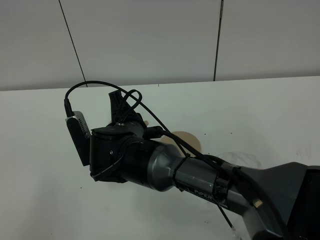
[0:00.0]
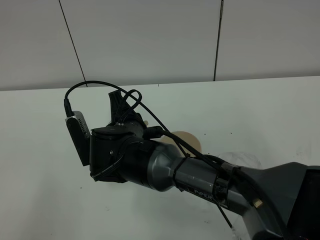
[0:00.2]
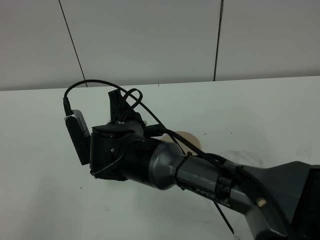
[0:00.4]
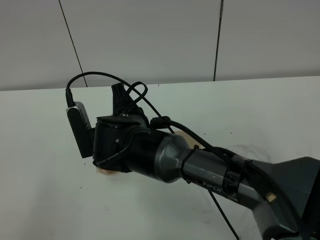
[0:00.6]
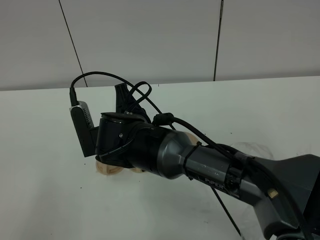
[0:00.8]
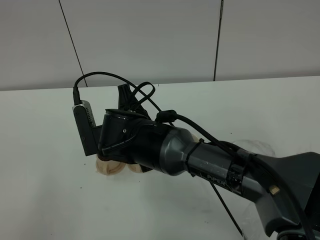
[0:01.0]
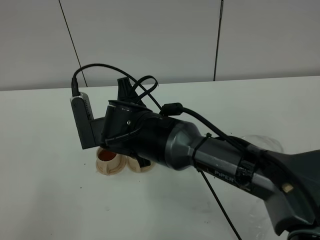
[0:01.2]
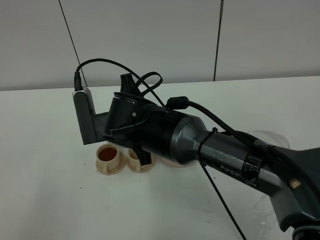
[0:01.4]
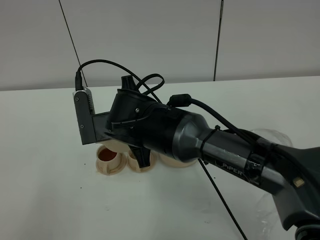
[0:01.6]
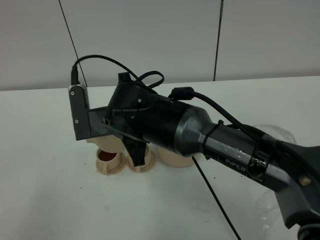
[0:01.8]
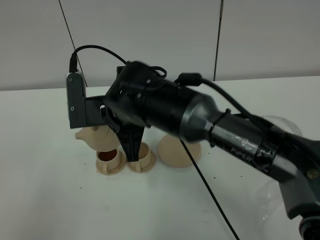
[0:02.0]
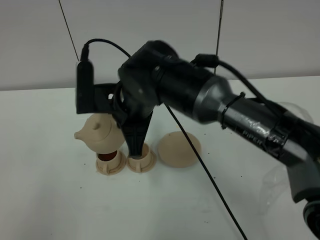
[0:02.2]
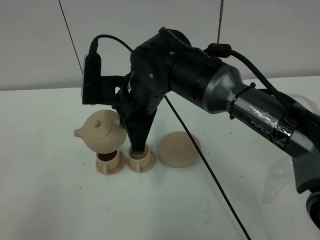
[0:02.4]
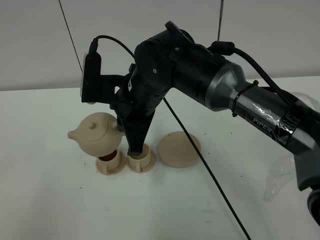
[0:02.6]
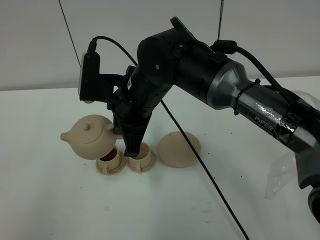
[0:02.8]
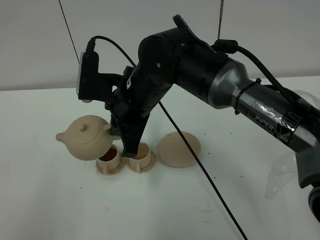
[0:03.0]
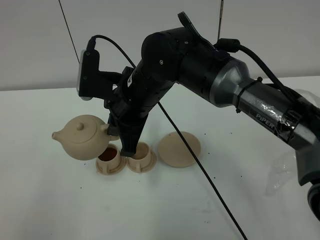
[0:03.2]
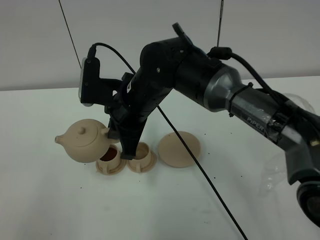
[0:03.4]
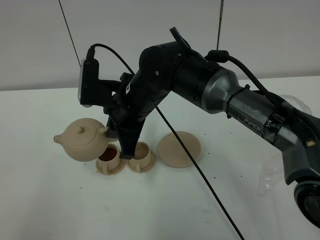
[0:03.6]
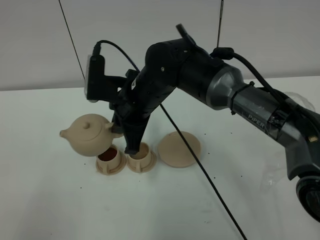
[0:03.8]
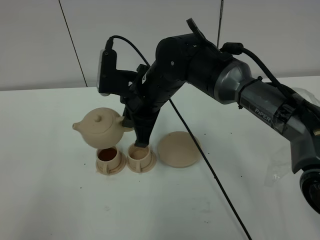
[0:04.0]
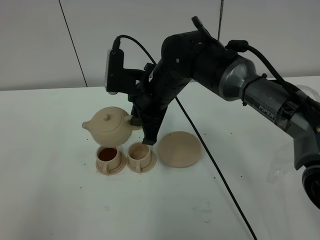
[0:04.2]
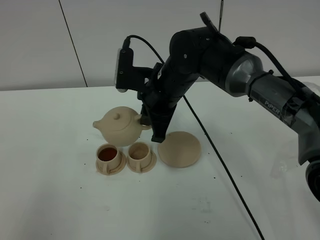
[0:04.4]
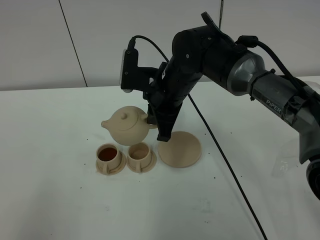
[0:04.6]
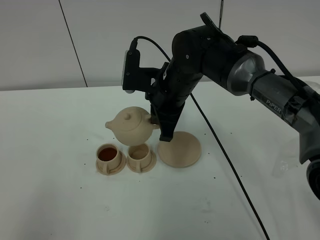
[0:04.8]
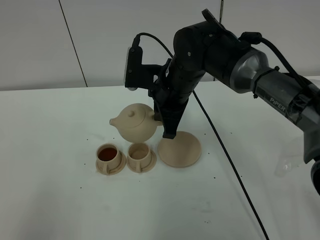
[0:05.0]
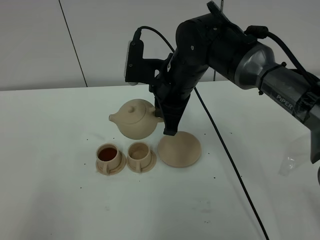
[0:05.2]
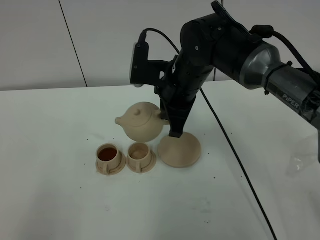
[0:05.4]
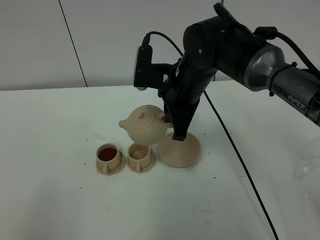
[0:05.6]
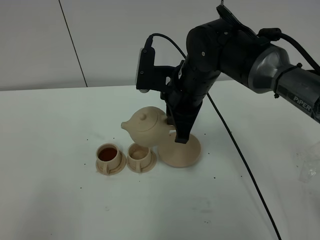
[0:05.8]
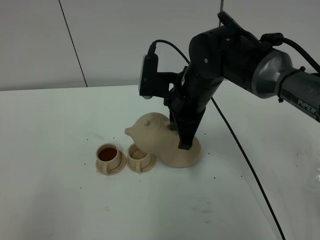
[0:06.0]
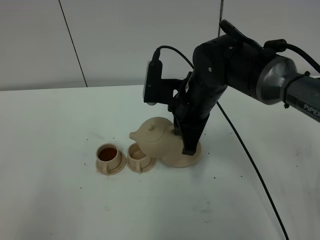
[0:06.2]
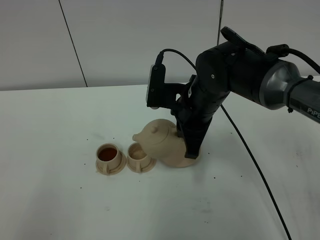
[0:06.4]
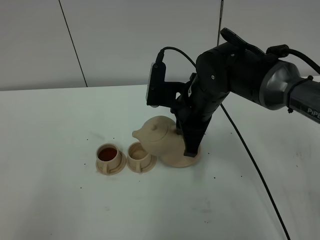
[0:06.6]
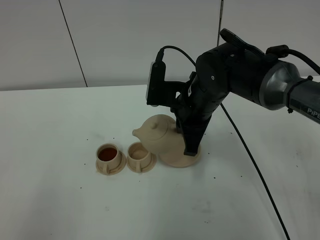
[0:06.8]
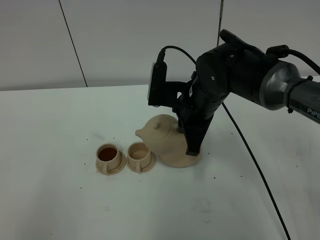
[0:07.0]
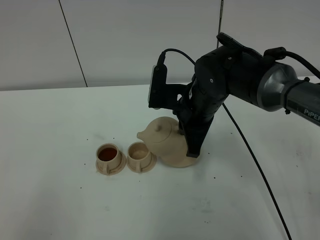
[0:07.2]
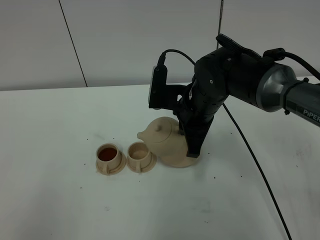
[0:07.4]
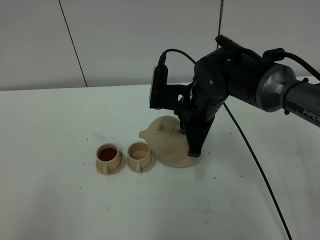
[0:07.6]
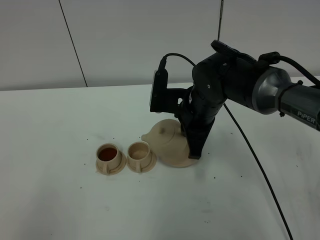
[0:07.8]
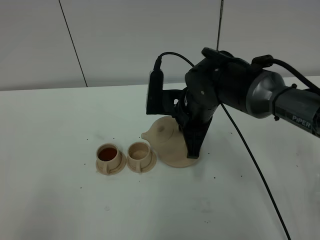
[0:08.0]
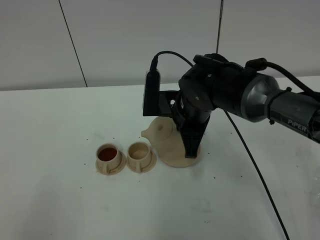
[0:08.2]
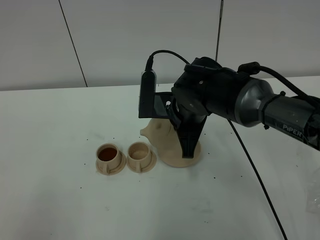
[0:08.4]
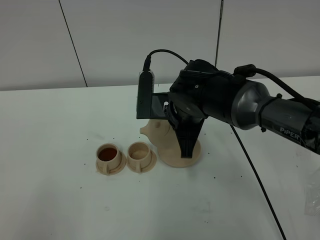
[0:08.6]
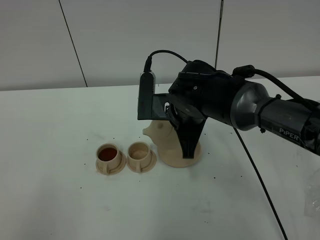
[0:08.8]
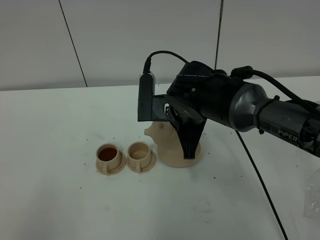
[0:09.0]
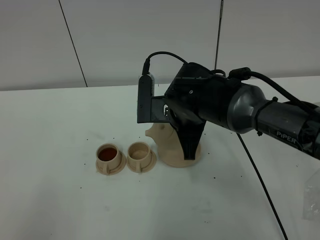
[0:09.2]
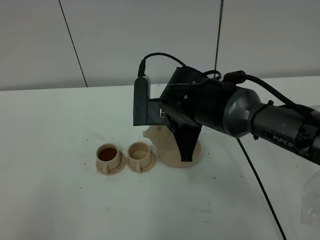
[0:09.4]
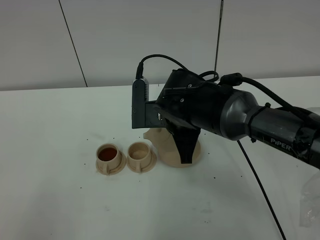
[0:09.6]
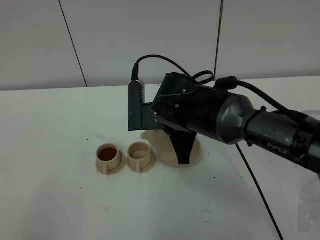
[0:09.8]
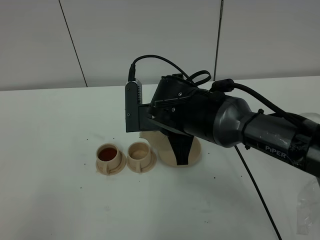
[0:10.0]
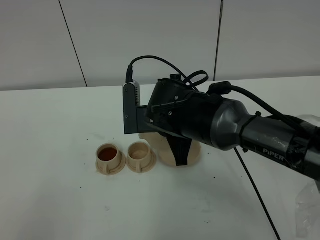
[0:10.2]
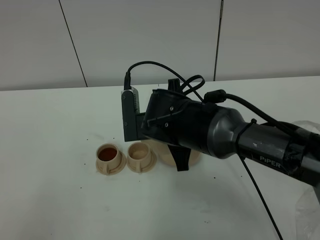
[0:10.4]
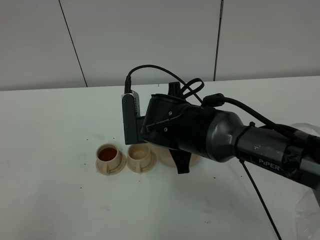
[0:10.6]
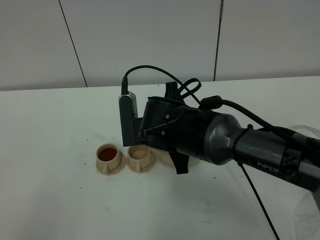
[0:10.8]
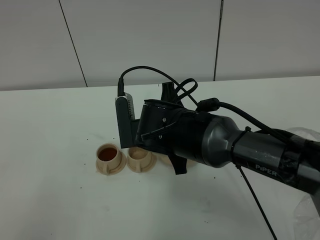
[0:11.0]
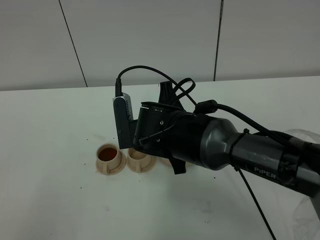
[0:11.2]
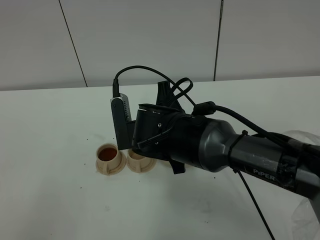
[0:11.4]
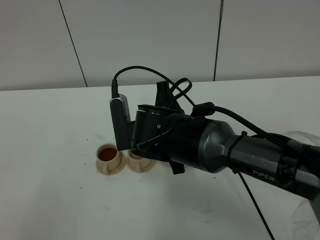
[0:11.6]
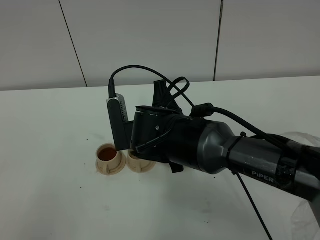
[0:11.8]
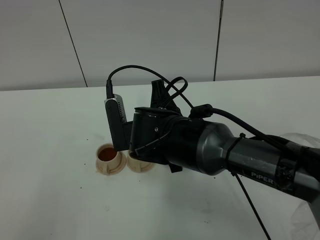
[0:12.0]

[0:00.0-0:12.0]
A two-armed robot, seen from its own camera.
Task of the whole recording: grasp the brown teapot and pour the tea into the two brown teacups one by one, put the brown teapot back in its original place.
0:01.6 to 0:03.0: The right gripper ends up approximately 5 cm from where it was.
0:03.0 to 0:04.4: The right gripper is displaced forward by roughly 5 cm.
0:06.0 to 0:07.6: The grippers stay close to where they were, moving slightly.
0:07.6 to 0:09.0: The grippers stay close to where they were, moving slightly.
0:09.0 to 0:10.4: The grippers make only small movements.
0:10.4 to 0:12.0: The grippers move only a little.

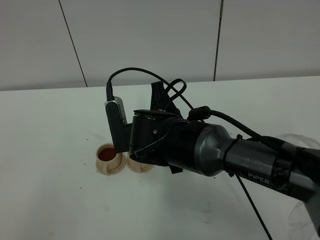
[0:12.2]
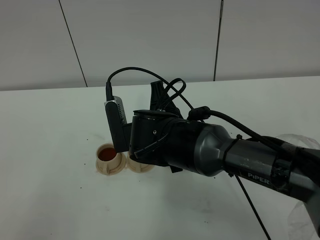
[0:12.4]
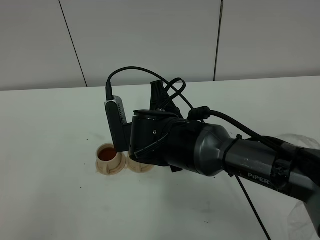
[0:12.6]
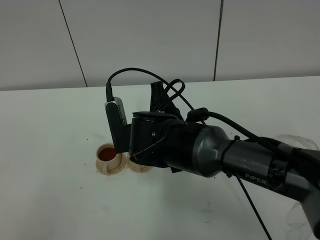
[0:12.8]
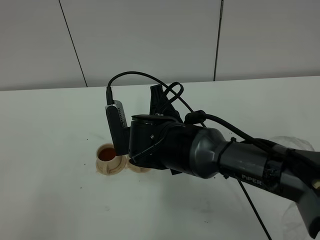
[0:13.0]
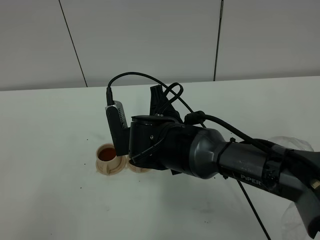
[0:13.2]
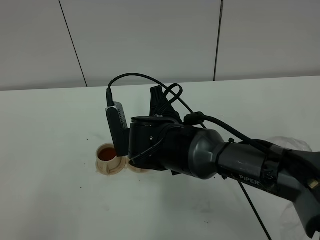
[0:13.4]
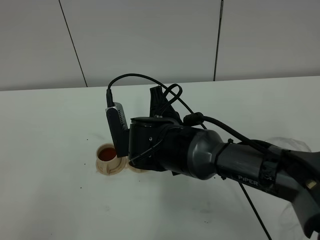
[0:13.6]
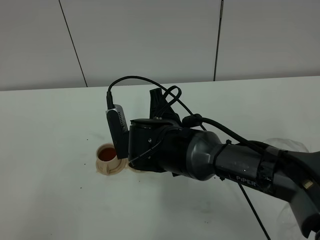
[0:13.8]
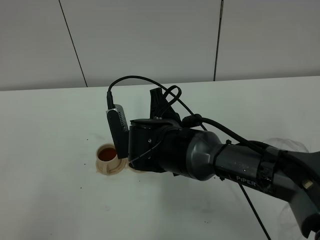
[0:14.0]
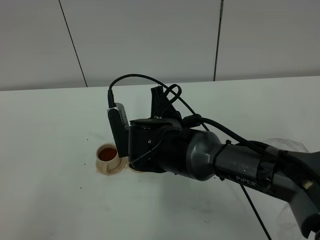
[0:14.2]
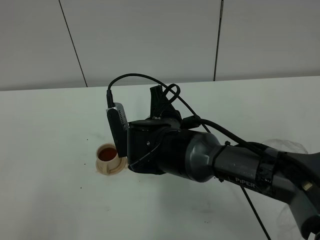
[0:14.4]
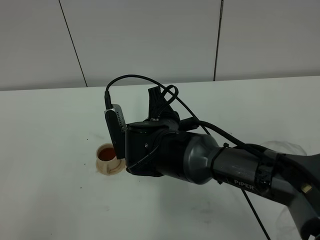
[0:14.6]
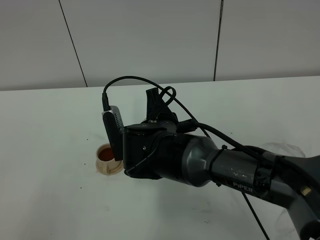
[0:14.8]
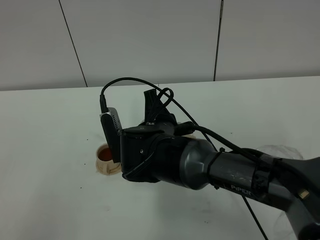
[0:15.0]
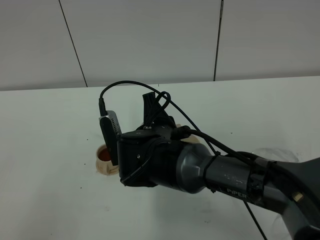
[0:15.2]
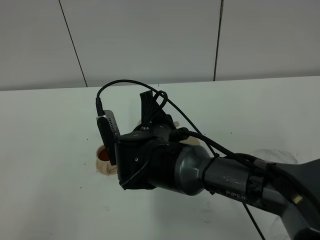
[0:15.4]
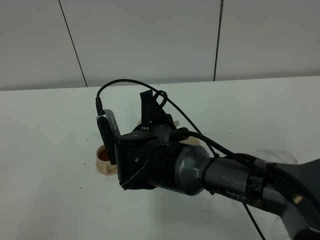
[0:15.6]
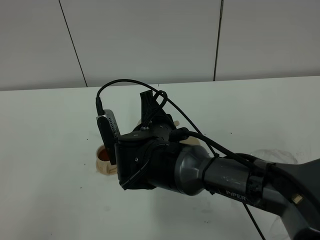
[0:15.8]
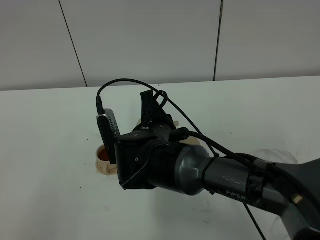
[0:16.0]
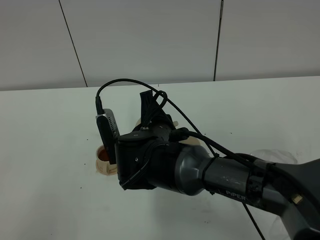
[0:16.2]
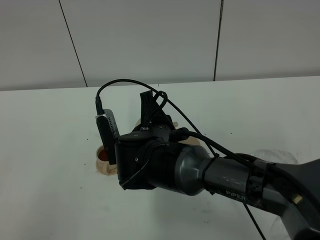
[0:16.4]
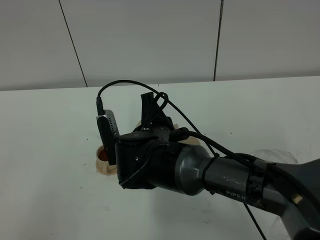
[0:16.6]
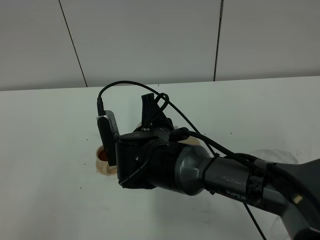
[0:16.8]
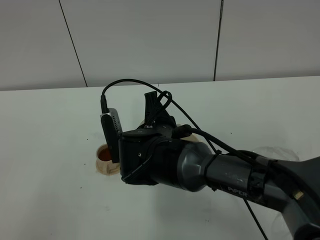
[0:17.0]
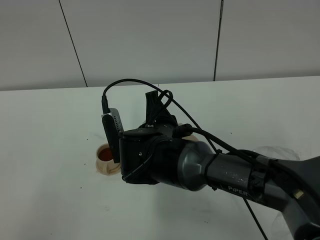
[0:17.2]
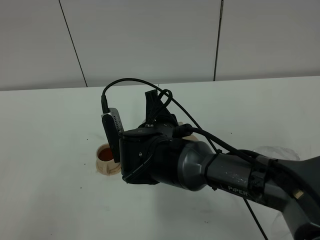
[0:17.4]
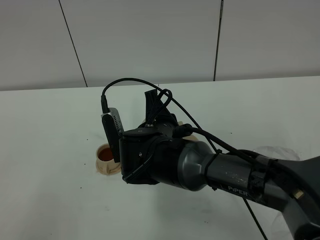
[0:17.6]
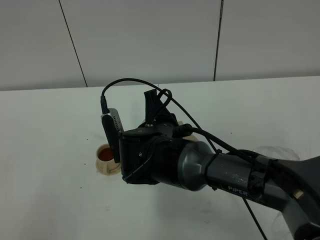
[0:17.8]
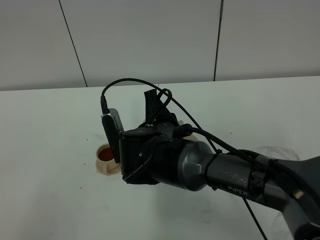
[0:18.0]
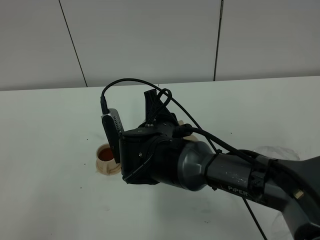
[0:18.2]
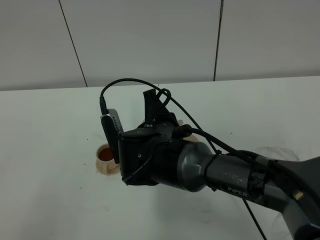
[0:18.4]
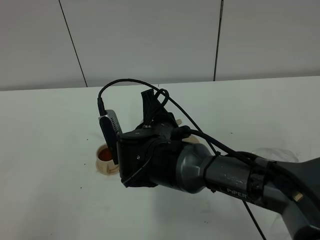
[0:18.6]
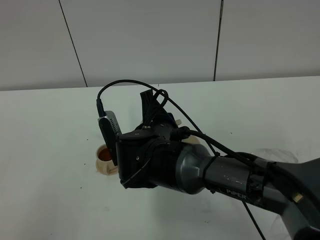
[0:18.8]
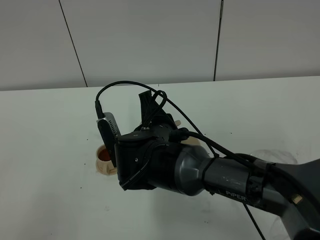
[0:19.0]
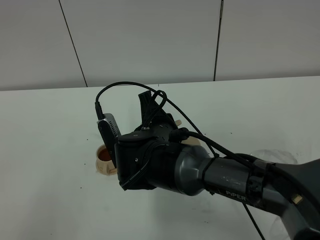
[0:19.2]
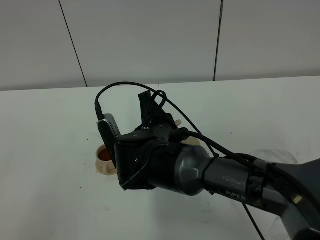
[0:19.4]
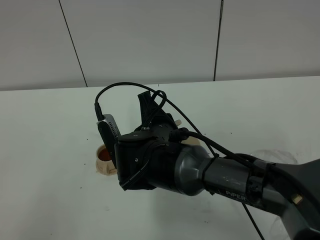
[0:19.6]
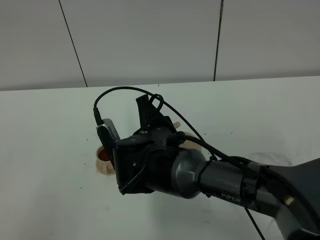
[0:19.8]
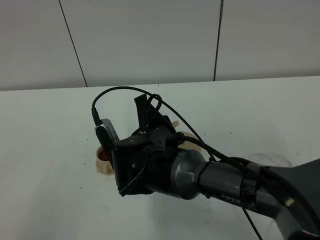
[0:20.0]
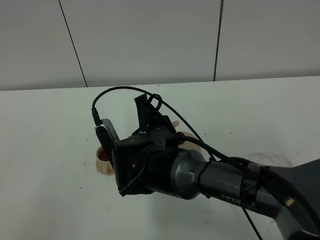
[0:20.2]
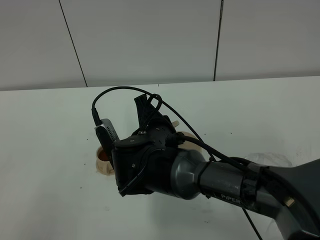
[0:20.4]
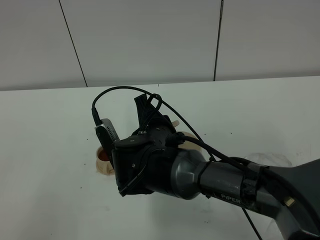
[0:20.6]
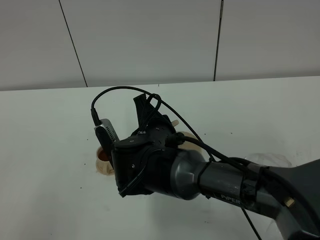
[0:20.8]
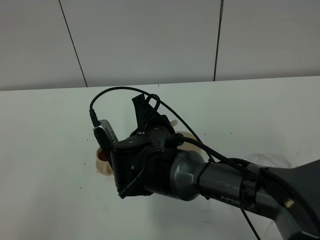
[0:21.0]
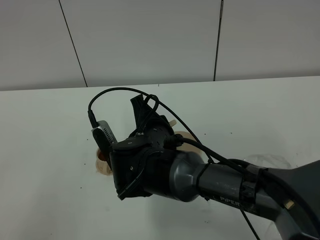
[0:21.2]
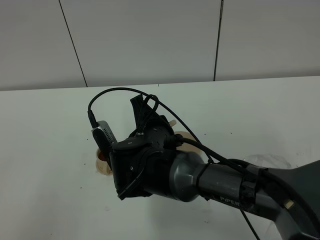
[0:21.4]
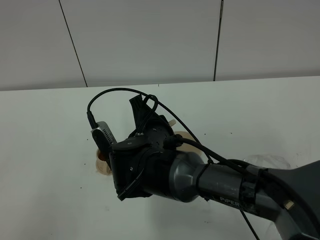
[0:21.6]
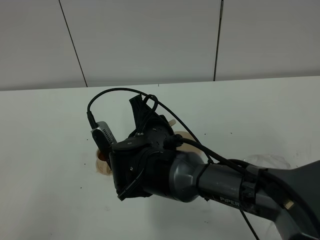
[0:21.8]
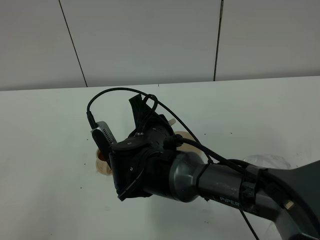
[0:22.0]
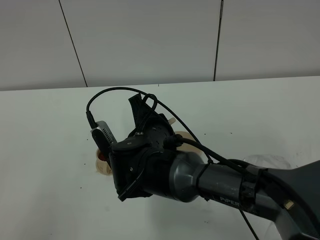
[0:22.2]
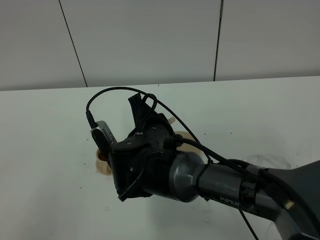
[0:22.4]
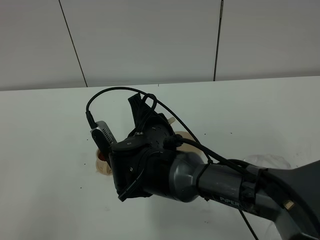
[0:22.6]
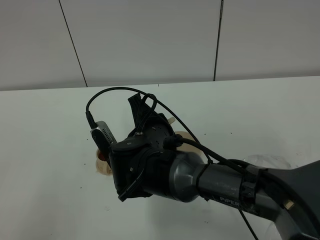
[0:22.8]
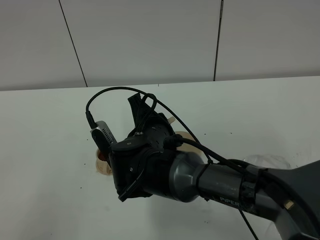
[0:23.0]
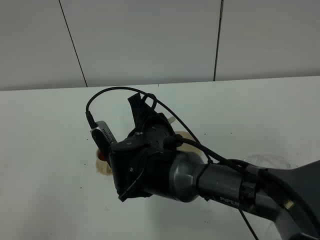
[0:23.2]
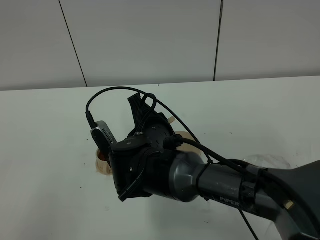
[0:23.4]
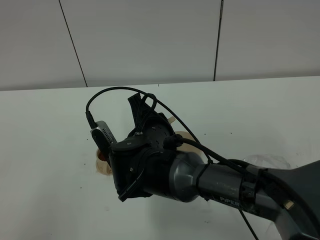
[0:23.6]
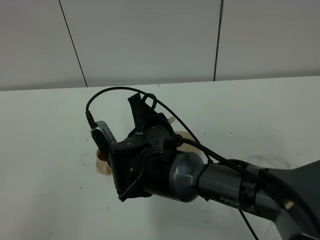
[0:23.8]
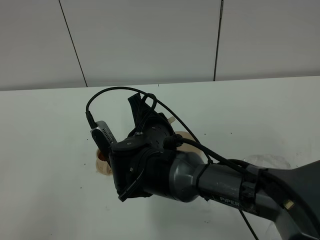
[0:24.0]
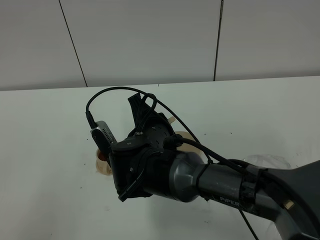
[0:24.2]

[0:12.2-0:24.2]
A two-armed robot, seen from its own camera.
Task of the whole recording: grasp the brown teapot and pour the tea into the two brown teacups one by one, put the brown teapot back in its original place.
0:12.2 to 0:15.2: The grippers move only a little.
0:15.2 to 0:18.2: Both grippers stay put.
0:18.2 to 0:19.8: The grippers make only small movements.
0:19.8 to 0:21.2: Both grippers stay about where they are.
0:21.2 to 0:24.2: Both grippers stay about where they are.
